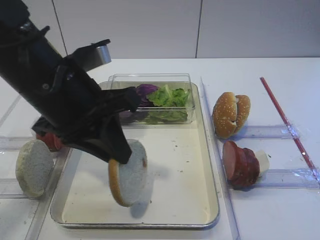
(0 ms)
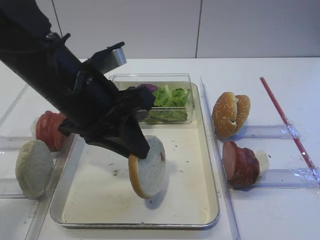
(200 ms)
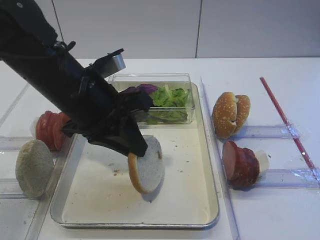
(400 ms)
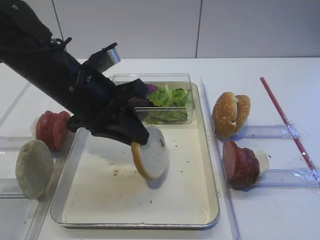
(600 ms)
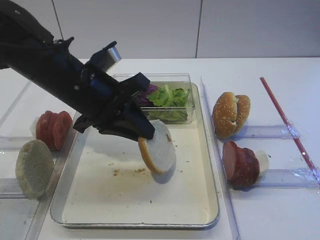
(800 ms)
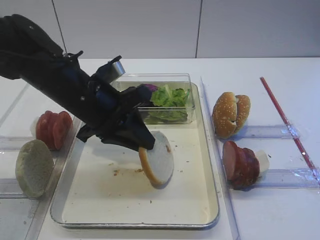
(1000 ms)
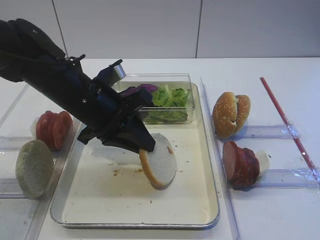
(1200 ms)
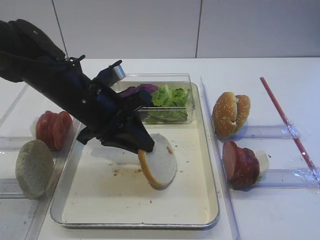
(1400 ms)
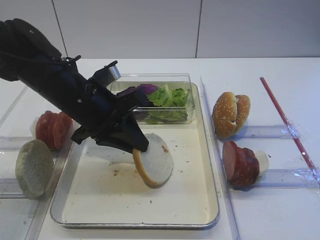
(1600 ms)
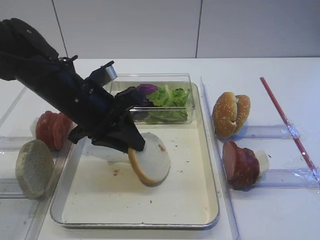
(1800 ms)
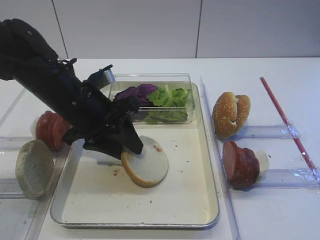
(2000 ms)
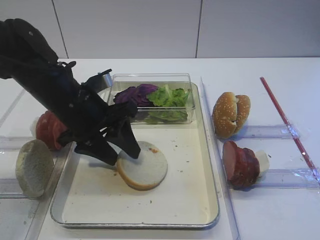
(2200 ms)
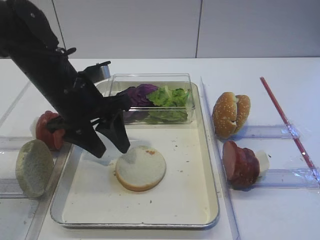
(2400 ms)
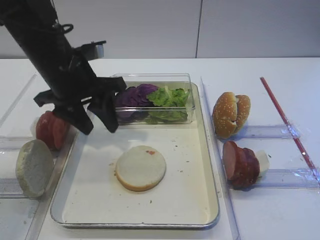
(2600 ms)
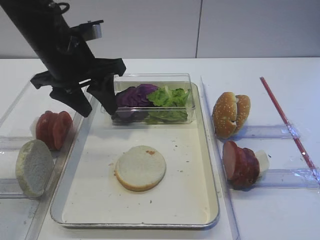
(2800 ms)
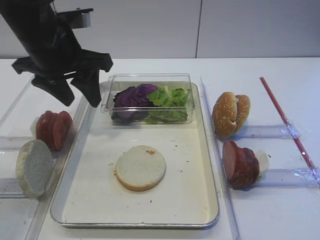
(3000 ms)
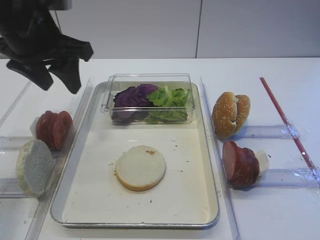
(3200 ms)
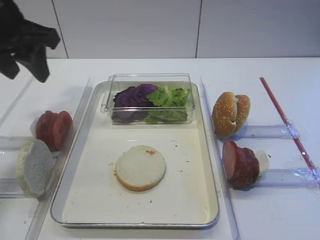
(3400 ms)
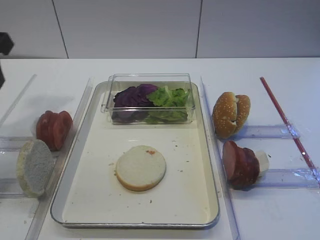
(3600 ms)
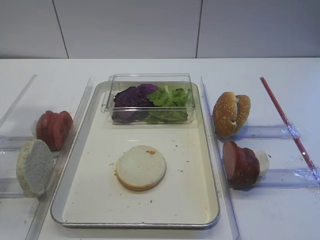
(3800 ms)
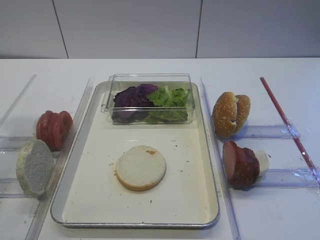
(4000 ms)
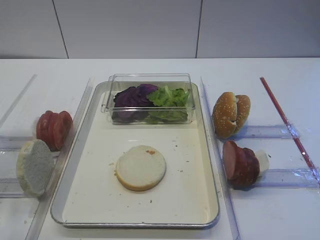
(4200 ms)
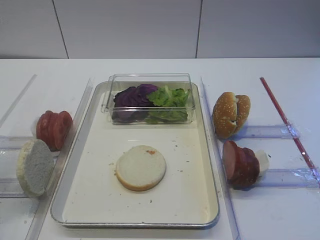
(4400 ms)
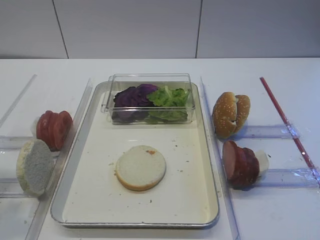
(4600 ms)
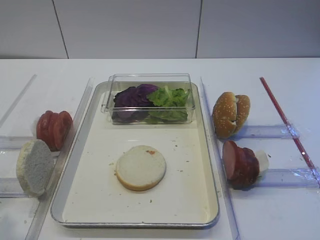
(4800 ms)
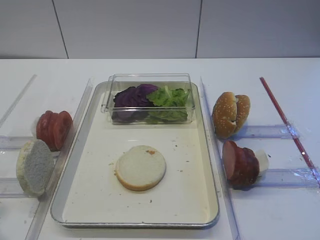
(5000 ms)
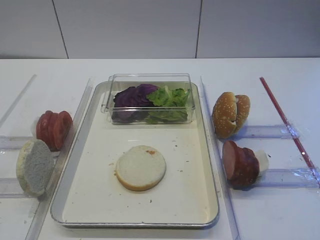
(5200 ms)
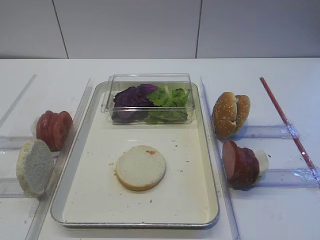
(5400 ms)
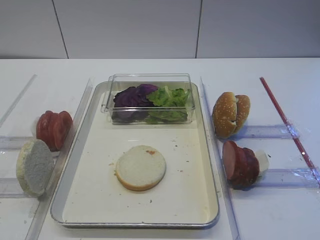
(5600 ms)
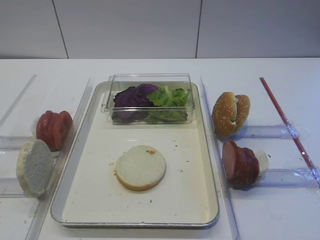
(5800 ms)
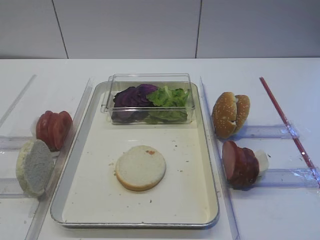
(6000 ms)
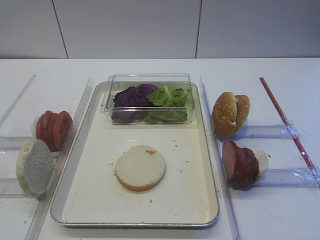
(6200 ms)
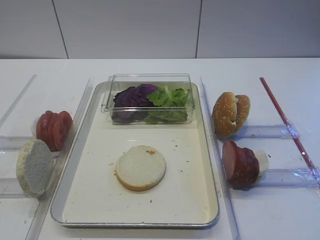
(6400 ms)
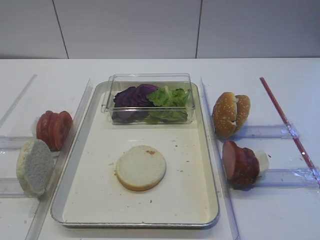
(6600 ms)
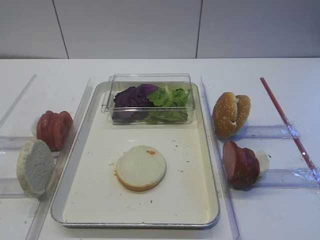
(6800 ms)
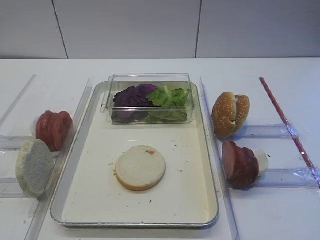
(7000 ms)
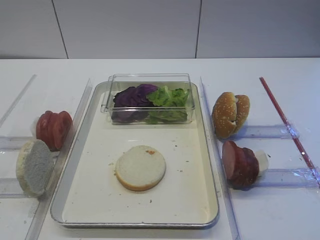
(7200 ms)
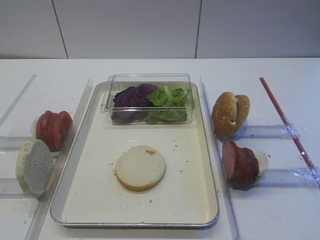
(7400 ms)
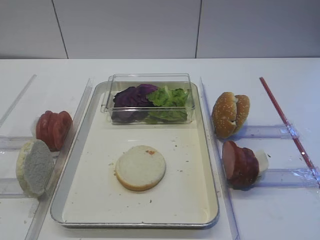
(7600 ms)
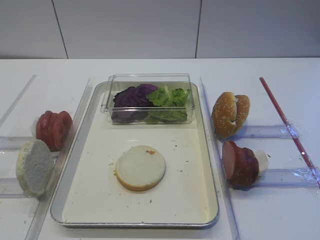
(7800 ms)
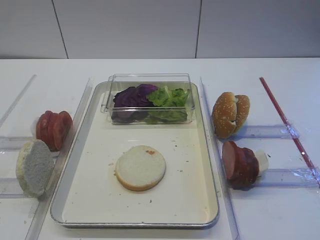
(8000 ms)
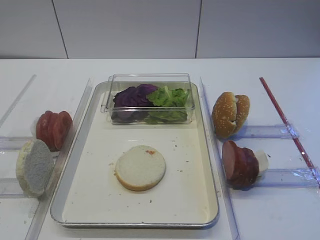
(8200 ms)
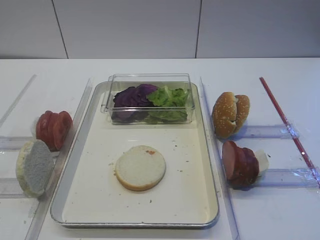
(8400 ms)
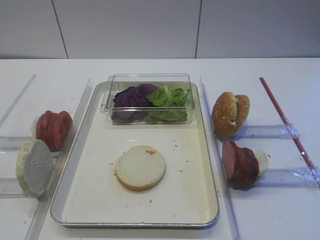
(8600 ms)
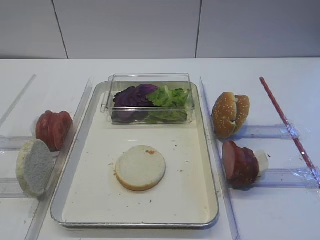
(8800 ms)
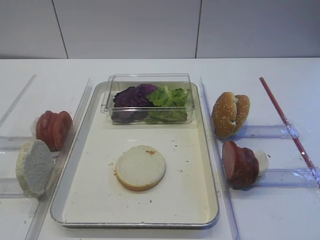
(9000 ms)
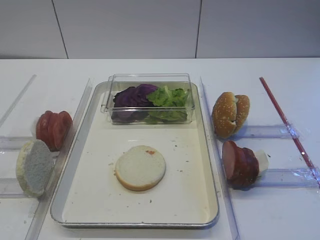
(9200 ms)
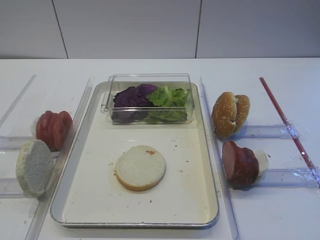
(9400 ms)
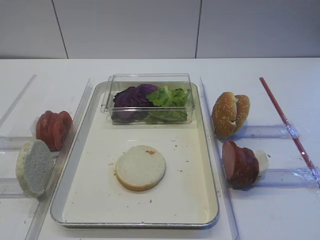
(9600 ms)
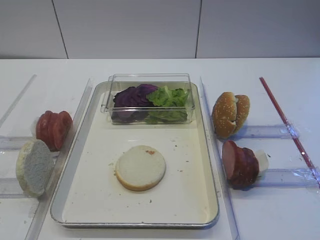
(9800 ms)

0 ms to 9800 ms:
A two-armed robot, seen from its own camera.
Step, 0 ms to 2600 ms: Place the bread slice on the tray with the left gripper.
0 ms to 1400 ms: The left gripper goes about 10 cm downward and forward.
1400 ms to 2800 ms: The left gripper goes about 5 cm upward, and opens its fingers.
2800 ms to 4200 ms: The left gripper heads backward, to the left and upward, covering approximately 25 cm.
4200 ms to 5600 ms: The left gripper moves backward and downward, roughly 20 cm.
7000 ms to 9800 ms: Both grippers stay about where they are.

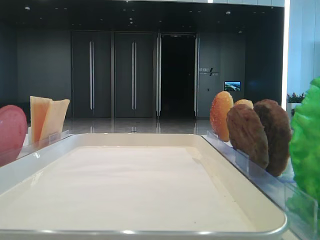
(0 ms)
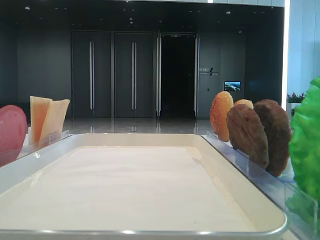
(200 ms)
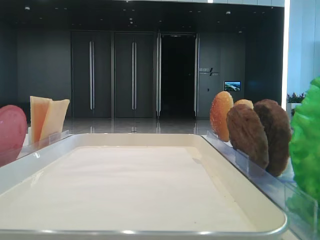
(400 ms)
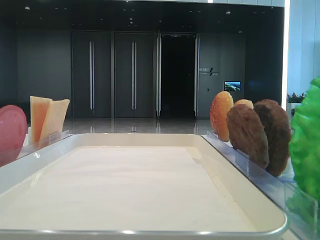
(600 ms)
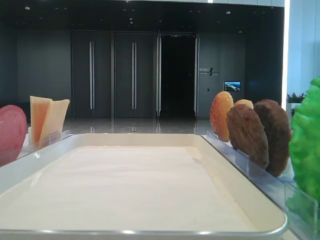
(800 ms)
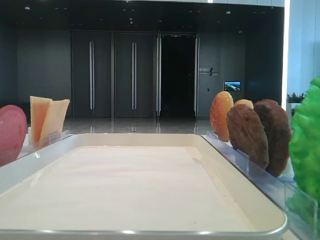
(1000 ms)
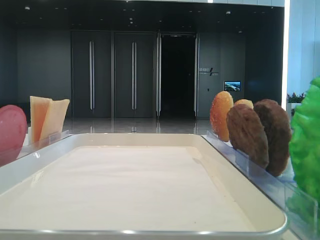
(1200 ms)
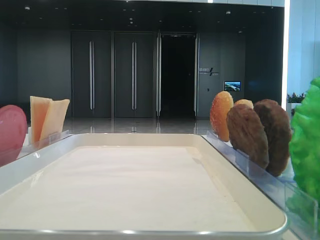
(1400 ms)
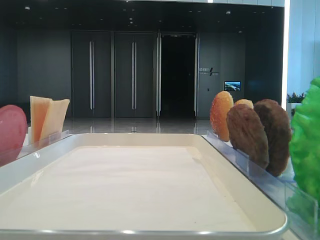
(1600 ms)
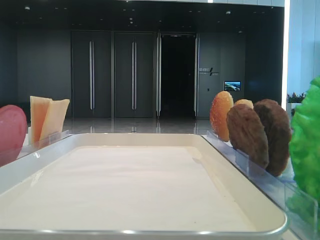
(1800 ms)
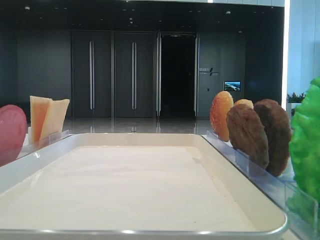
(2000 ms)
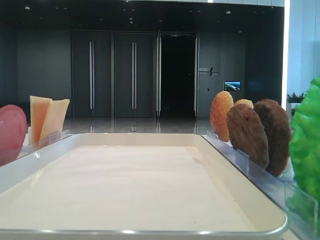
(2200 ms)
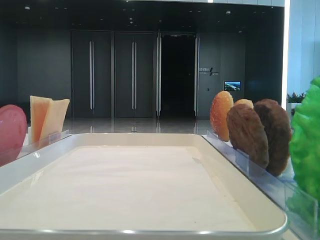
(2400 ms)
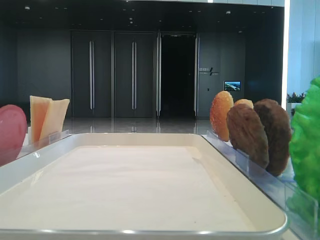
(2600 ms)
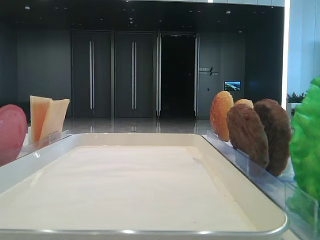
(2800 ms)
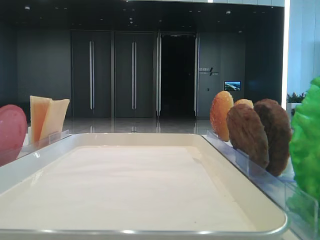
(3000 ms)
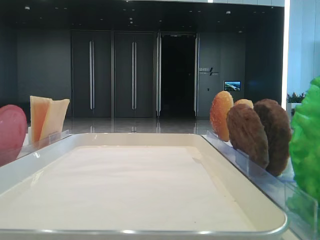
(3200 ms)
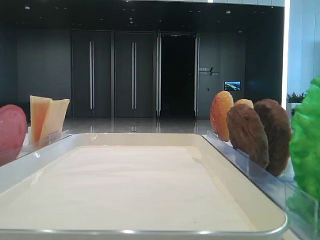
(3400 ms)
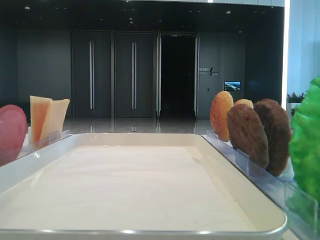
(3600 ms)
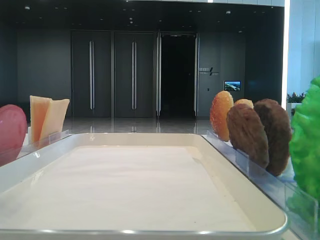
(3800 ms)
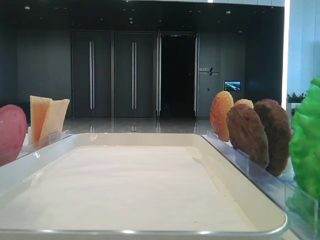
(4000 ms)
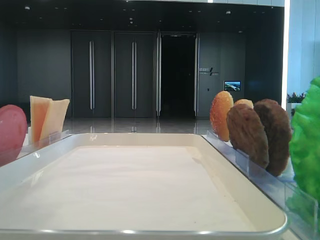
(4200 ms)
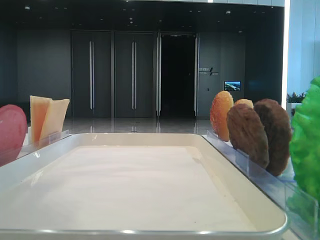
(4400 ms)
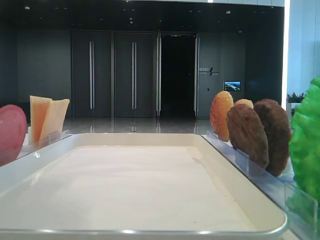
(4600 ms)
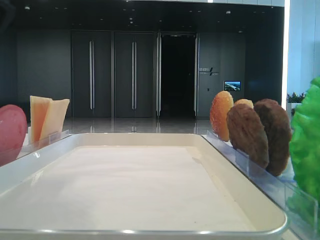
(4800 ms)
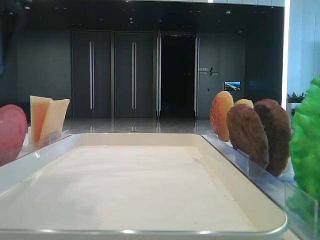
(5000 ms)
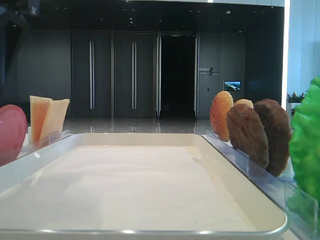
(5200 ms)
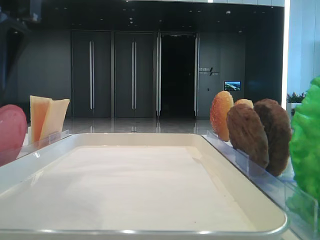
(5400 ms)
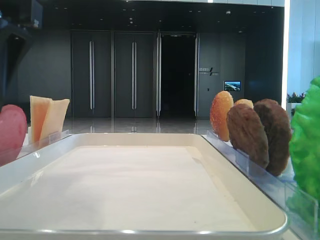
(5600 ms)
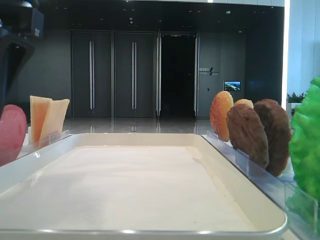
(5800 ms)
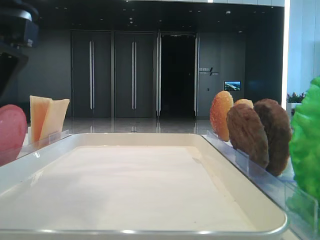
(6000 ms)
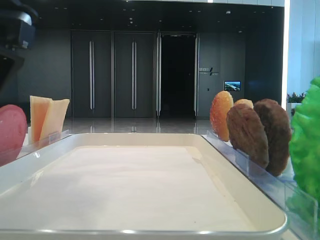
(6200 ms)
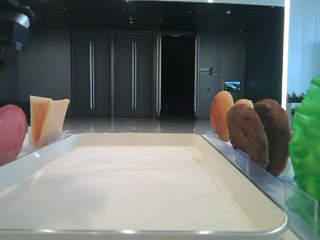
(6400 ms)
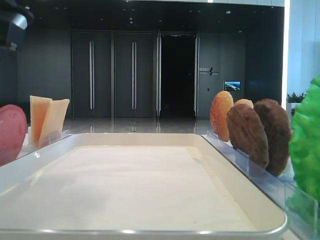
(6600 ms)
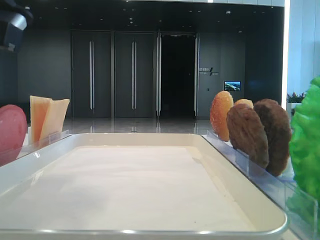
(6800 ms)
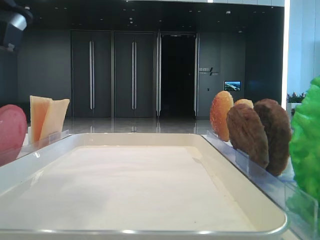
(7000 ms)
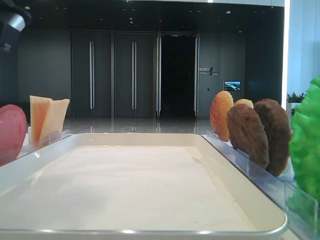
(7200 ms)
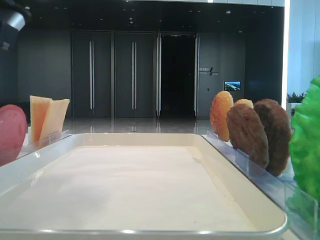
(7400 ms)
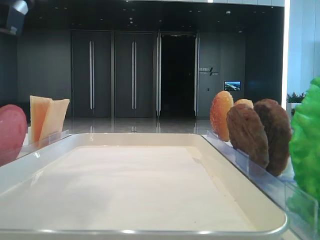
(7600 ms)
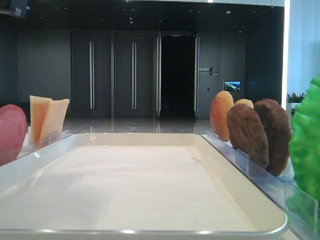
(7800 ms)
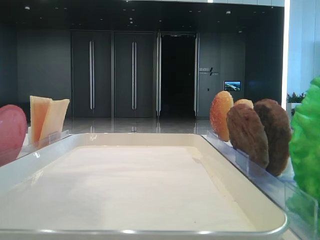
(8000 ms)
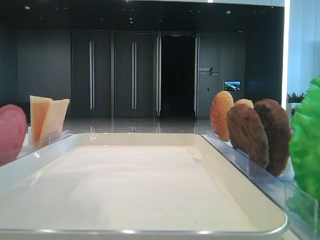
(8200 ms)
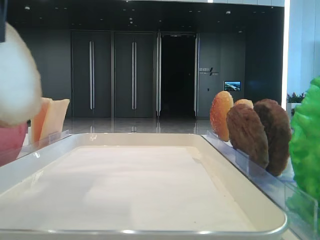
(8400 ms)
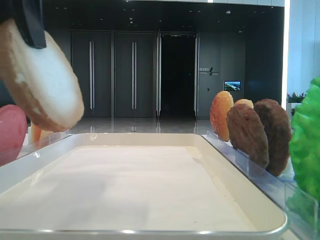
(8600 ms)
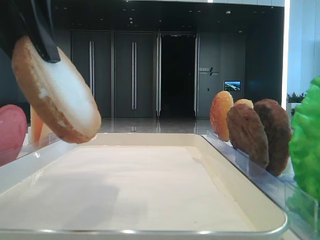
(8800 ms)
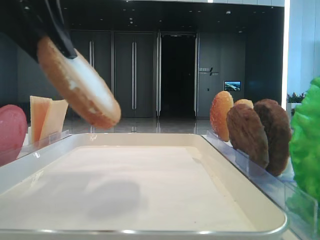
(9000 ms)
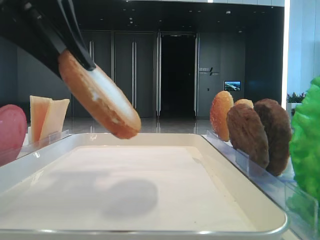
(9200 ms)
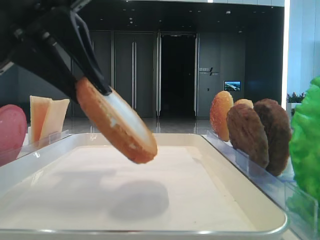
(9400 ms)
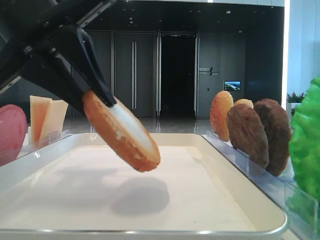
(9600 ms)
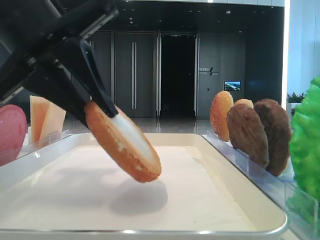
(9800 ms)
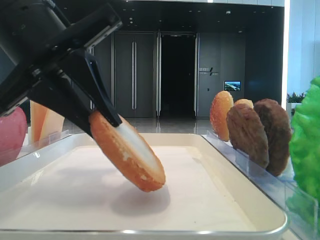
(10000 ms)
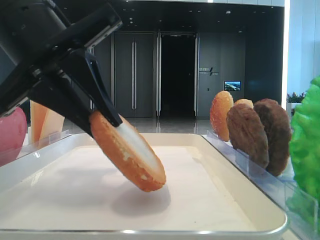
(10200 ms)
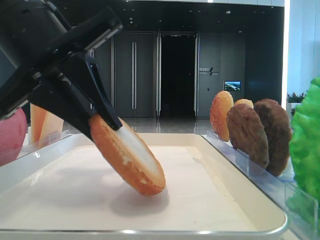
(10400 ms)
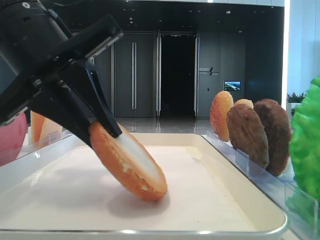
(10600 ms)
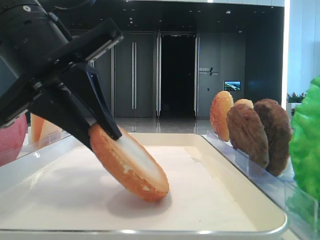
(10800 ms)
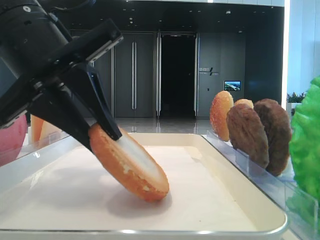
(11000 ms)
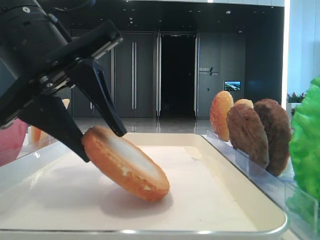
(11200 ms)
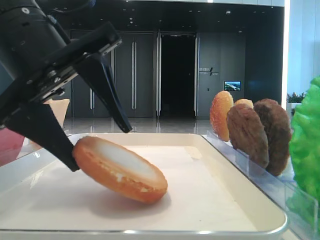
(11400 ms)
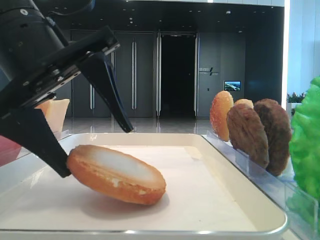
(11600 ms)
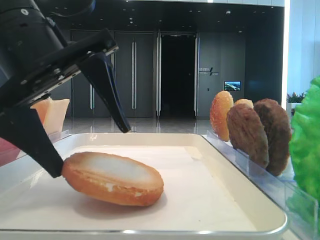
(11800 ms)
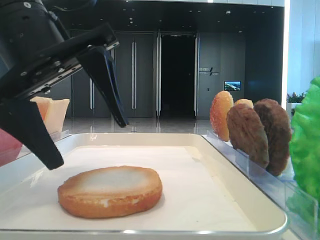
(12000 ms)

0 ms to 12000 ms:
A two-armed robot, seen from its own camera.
Step, 7400 ms to 11800 ms: Place the bread on the tray with the left hand.
3000 ms to 4400 ms: The left gripper goes some 15 cm to the right.
4400 ms to 6000 ms: The left gripper heads downward, covering some 5 cm.
6000 ms to 7600 ms: The left gripper closes.
9000 ms to 10400 ms: The left gripper is displaced downward by about 5 cm.
10400 ms to 12000 ms: The left gripper opens up.

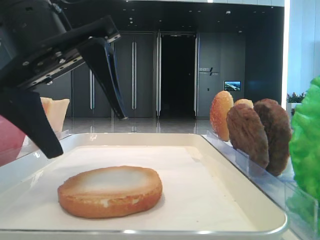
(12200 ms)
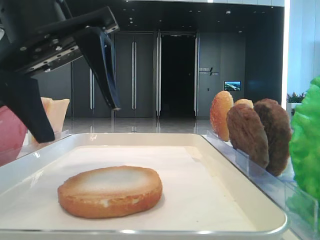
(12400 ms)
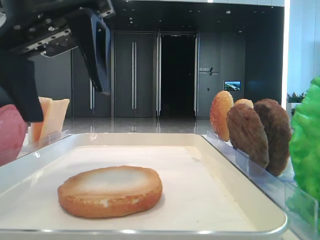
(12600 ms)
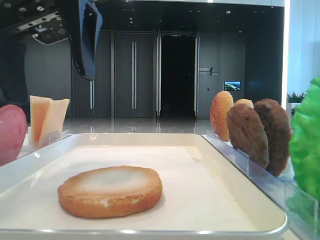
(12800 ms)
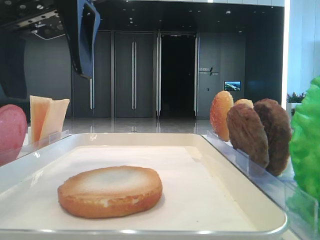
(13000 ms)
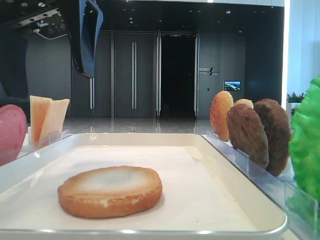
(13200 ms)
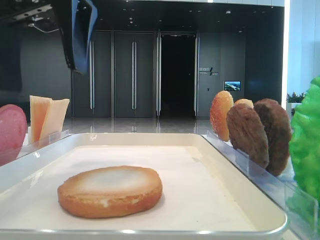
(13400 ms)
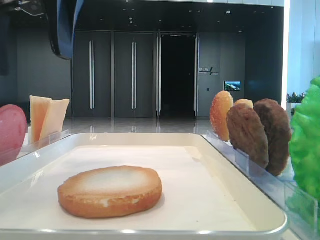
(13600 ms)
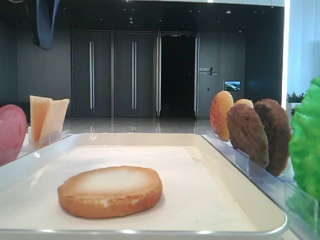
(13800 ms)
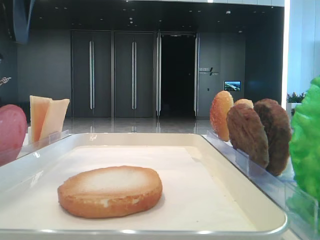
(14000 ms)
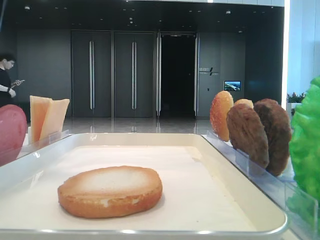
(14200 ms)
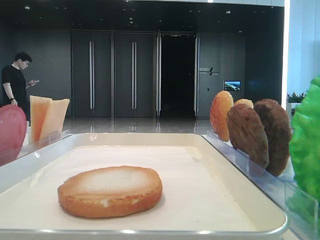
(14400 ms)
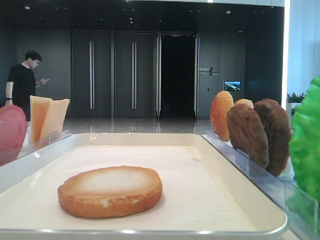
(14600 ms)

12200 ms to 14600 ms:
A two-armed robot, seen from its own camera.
12200 ms to 13400 ms: The left gripper shifts about 5 cm upward.
13400 ms to 14600 ms: The left gripper is displaced to the left and upward by about 20 cm.
